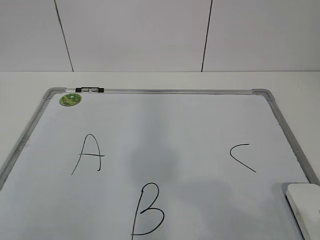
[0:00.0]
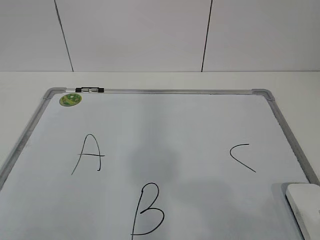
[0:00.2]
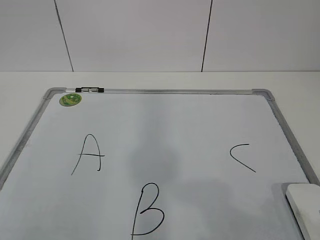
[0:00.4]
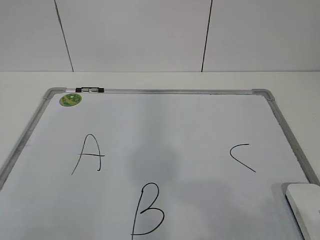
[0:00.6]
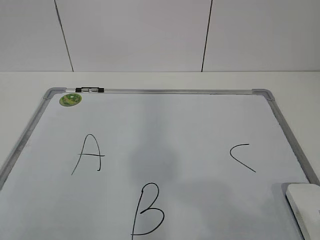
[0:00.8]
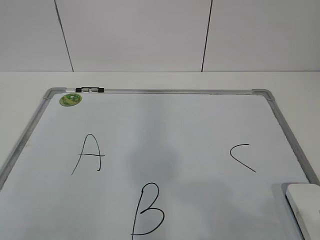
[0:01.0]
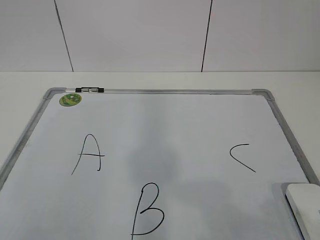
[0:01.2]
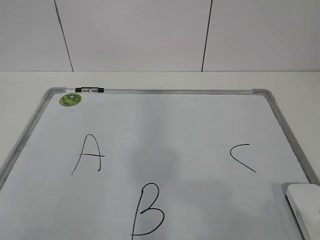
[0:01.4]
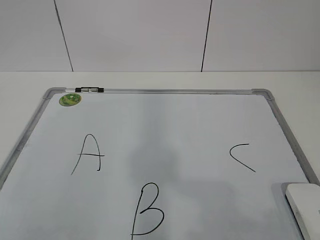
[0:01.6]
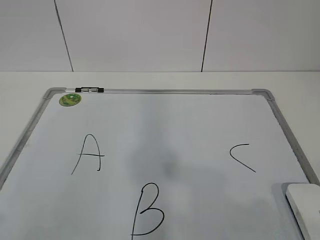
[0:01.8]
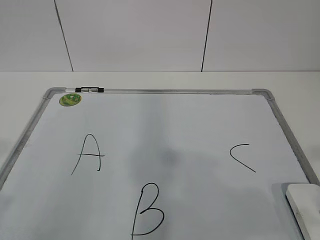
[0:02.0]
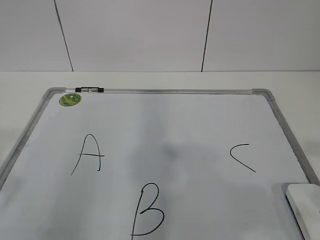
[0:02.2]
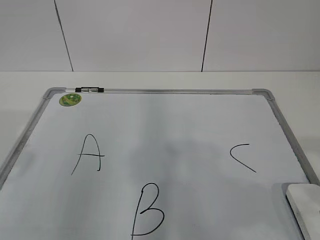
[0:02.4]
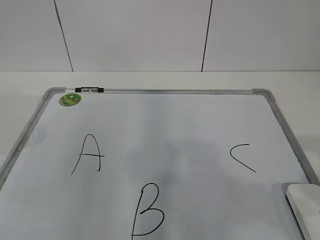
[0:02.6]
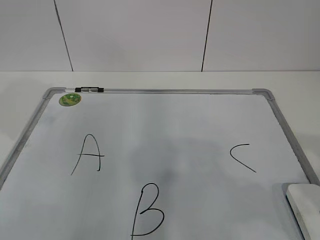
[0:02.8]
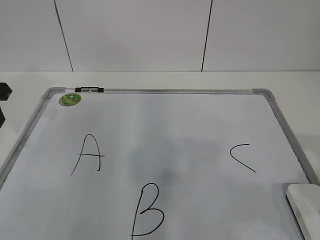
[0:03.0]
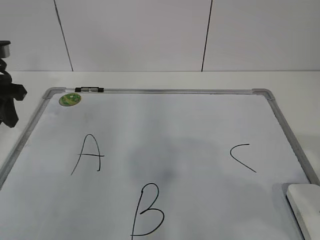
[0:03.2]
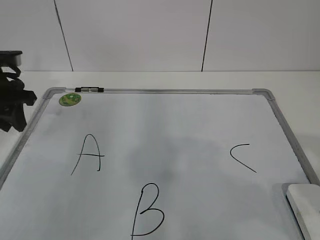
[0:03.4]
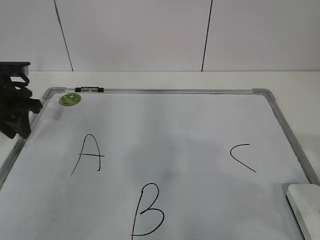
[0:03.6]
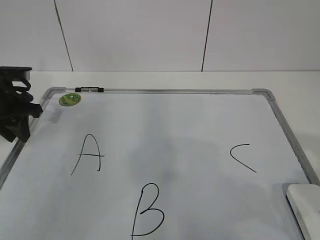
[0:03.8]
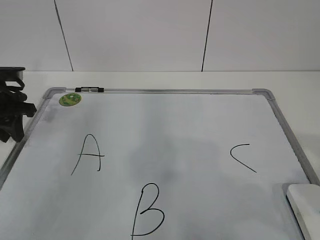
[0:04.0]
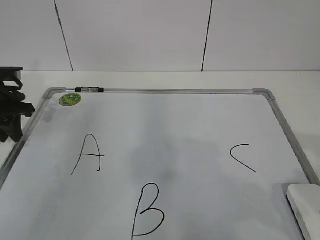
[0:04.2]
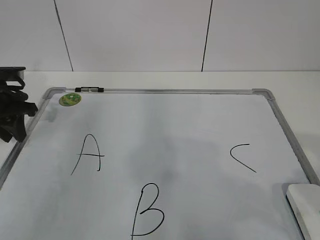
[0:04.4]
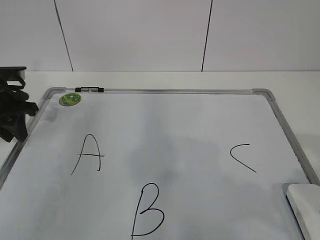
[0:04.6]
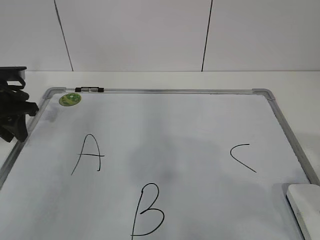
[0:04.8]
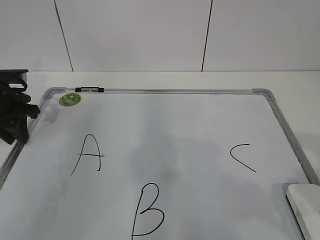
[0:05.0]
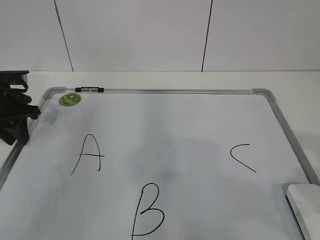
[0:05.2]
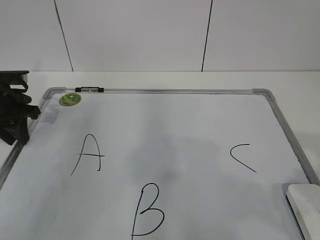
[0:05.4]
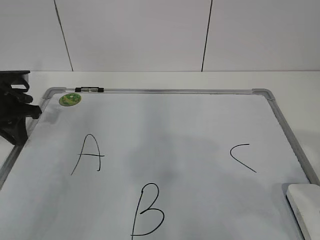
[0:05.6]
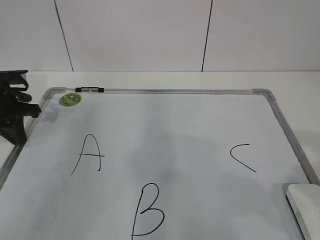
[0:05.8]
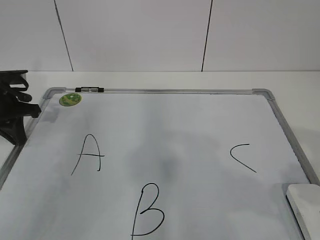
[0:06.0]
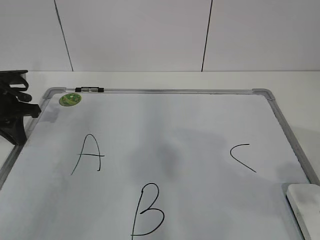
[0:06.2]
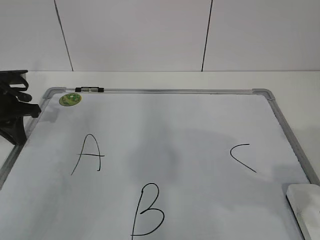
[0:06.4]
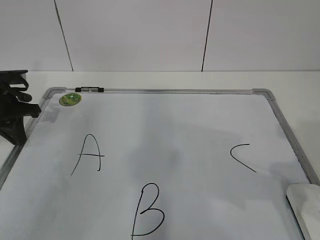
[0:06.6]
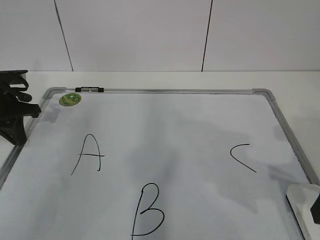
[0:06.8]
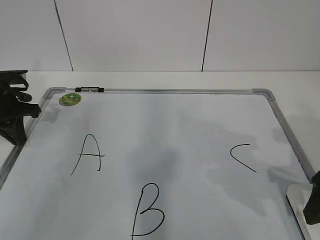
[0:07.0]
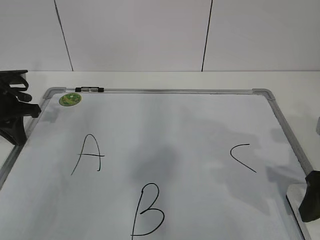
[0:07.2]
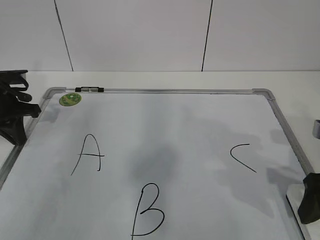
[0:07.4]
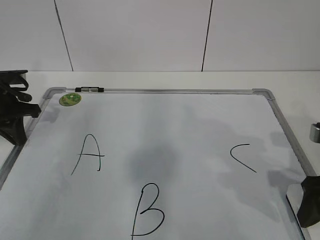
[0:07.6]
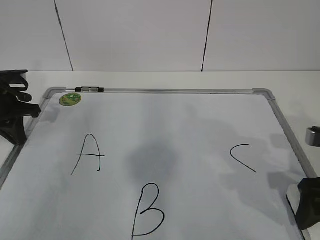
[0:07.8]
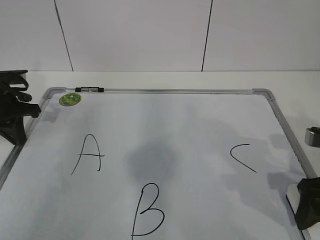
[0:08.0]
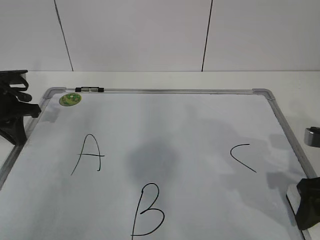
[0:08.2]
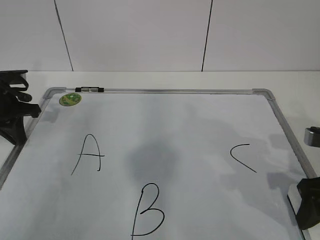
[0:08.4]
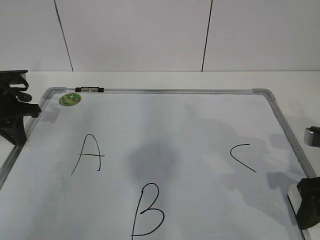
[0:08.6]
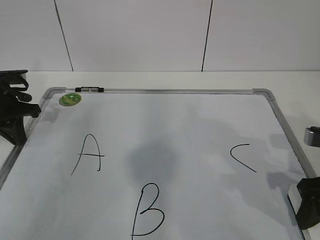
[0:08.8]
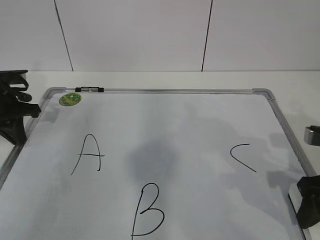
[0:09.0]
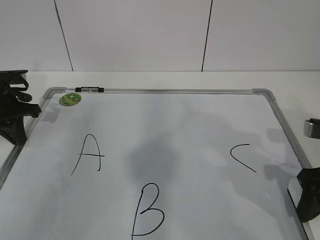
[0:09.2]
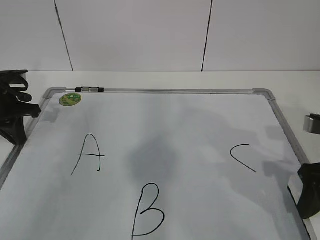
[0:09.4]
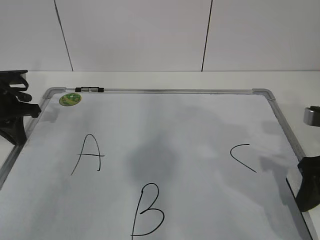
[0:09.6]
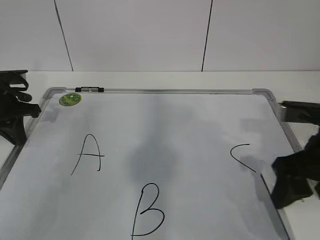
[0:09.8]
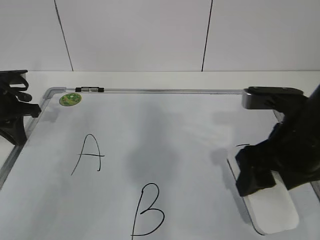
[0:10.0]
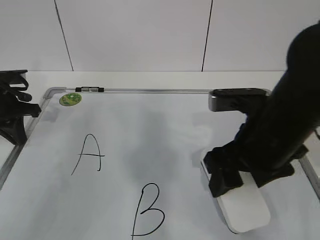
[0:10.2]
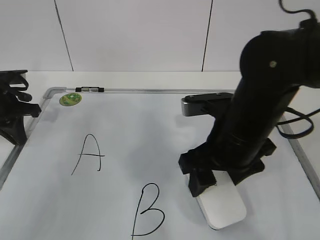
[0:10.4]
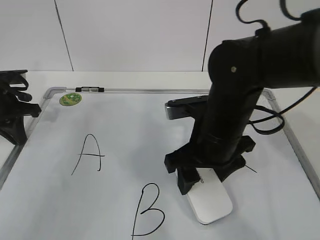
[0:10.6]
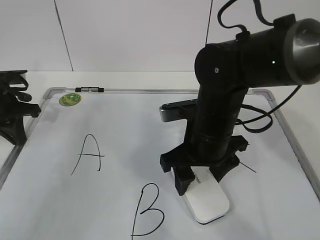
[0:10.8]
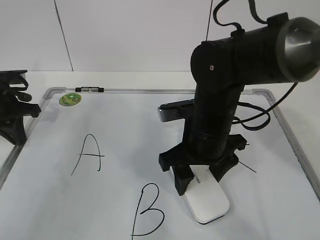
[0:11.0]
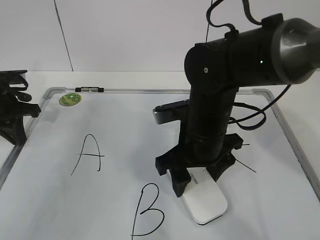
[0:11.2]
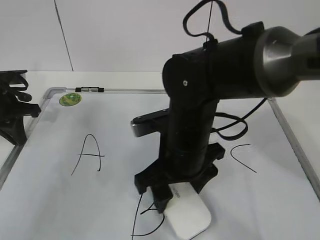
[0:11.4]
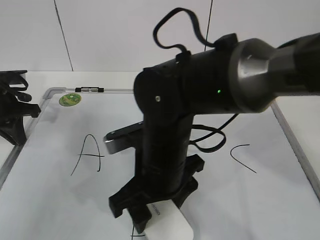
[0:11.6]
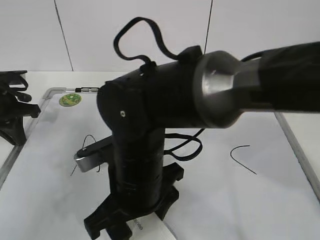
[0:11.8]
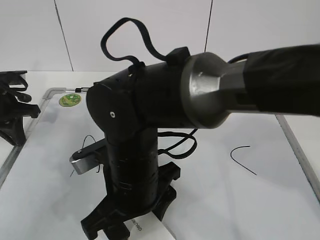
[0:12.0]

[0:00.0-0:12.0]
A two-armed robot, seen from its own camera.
Task of the whole recording: pick up the eraser on the blackboard and erase the letter "B".
Step, 0:00.0 to 0:04.6: Hold the drawing board steady with your left hand.
0:01.6 to 0:03.0: The left gripper travels forward by about 30 cm.
0:03.0 to 0:04.4: The left gripper heads downward and forward, covering about 10 cm.
0:04.4 to 0:06.0: The left gripper closes up.
0:06.0 to 0:07.6: The right gripper moves forward and downward, approximately 20 cm, and opens.
0:07.6 to 0:09.0: The right gripper closes its fingers.
0:09.0 to 0:10.4: The right gripper travels to the left by roughly 15 cm.
0:10.4 to 0:12.0: The right gripper is displaced to the left by about 15 cm.

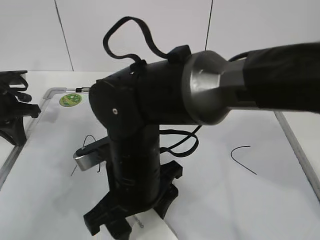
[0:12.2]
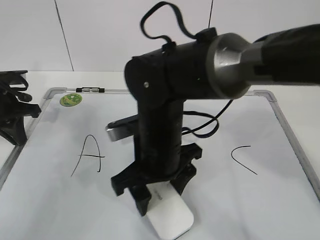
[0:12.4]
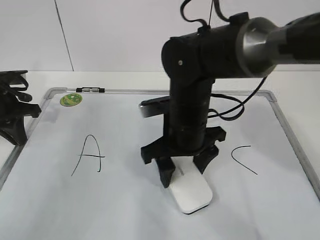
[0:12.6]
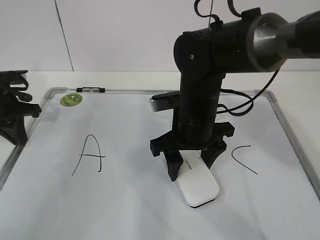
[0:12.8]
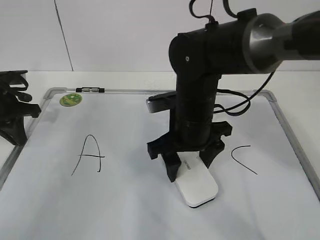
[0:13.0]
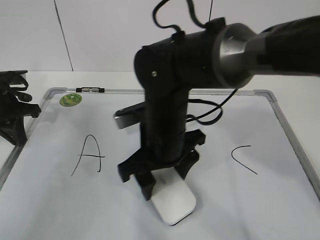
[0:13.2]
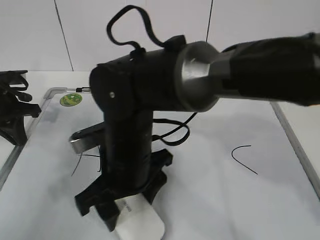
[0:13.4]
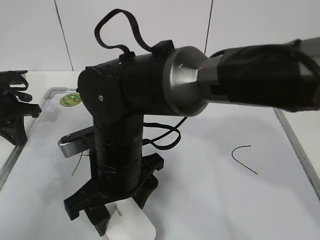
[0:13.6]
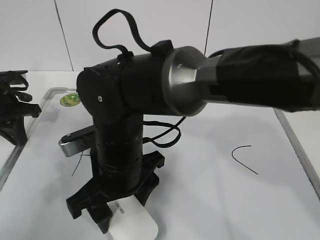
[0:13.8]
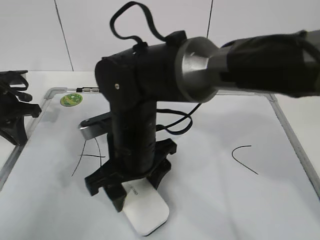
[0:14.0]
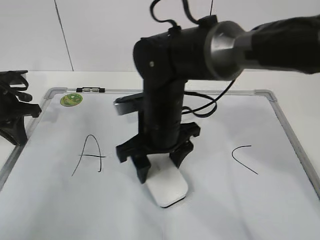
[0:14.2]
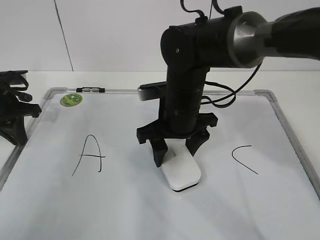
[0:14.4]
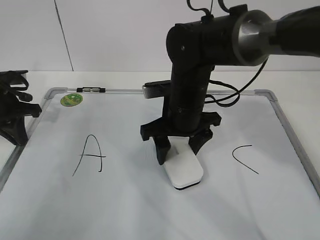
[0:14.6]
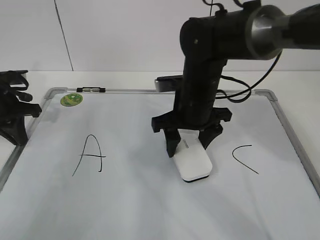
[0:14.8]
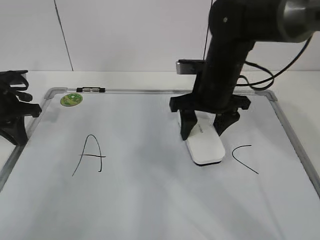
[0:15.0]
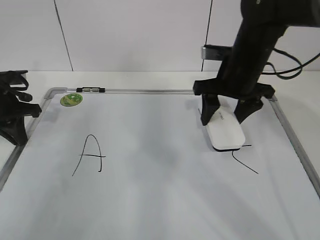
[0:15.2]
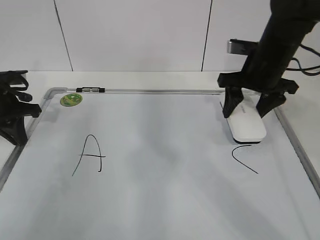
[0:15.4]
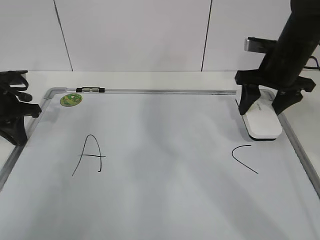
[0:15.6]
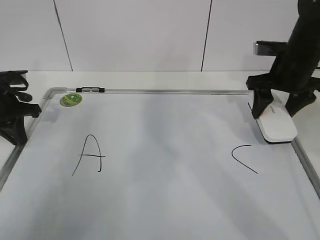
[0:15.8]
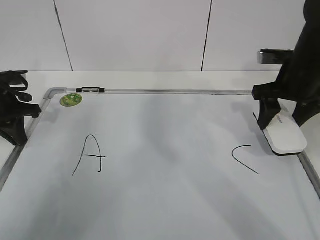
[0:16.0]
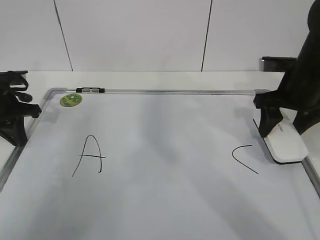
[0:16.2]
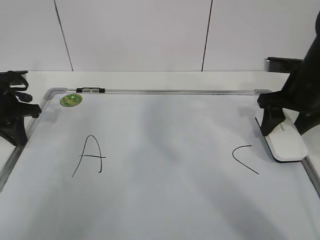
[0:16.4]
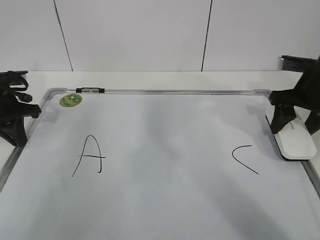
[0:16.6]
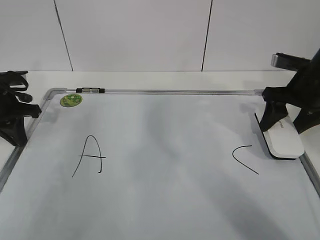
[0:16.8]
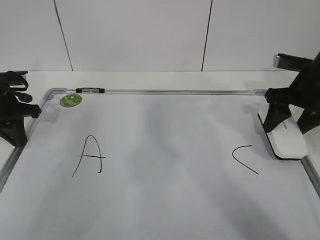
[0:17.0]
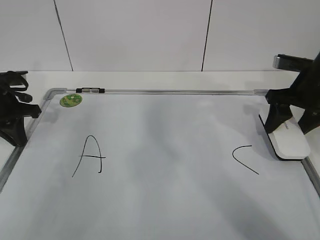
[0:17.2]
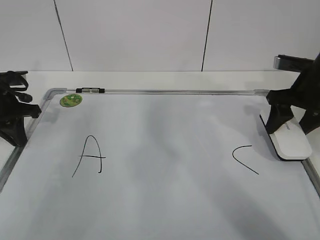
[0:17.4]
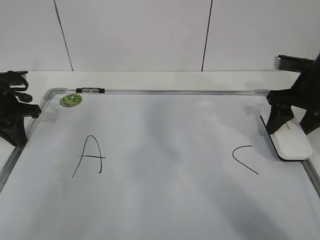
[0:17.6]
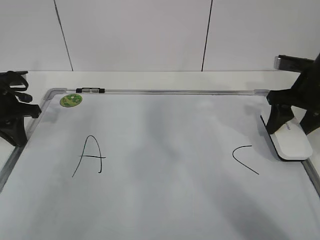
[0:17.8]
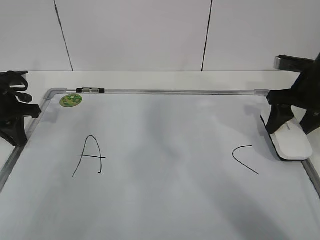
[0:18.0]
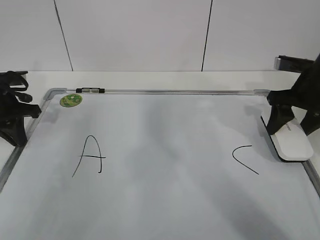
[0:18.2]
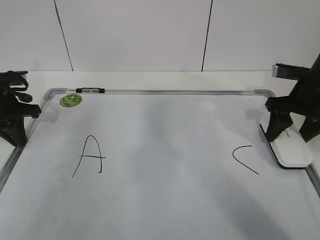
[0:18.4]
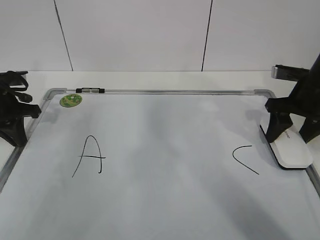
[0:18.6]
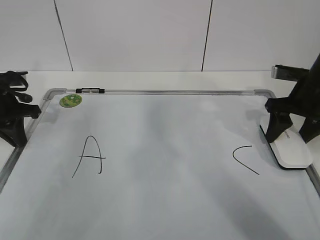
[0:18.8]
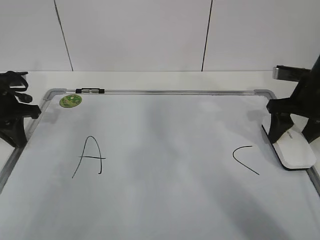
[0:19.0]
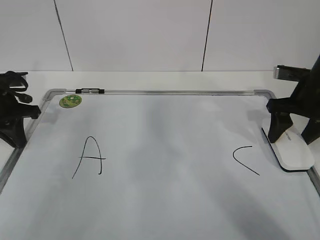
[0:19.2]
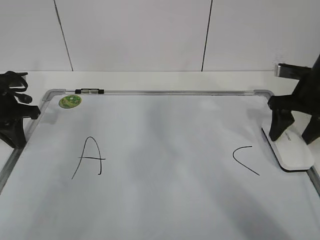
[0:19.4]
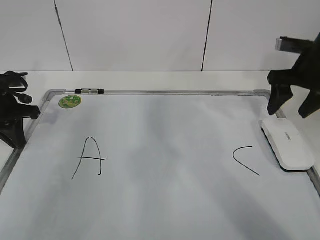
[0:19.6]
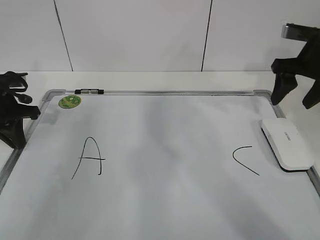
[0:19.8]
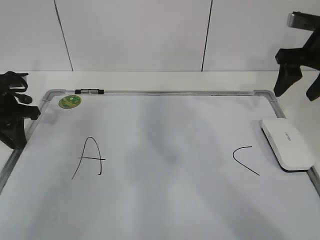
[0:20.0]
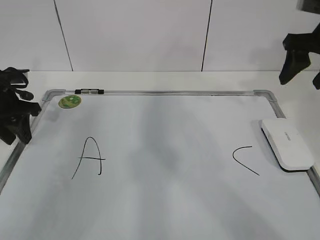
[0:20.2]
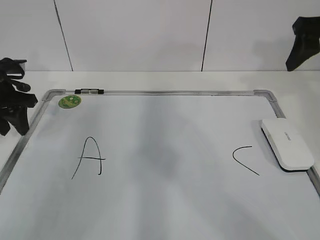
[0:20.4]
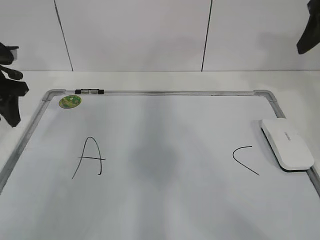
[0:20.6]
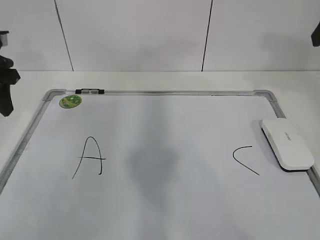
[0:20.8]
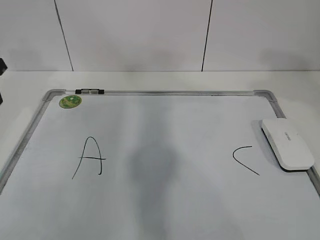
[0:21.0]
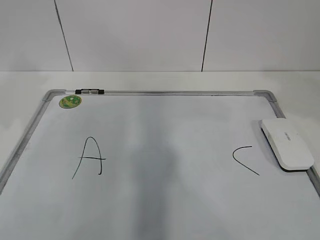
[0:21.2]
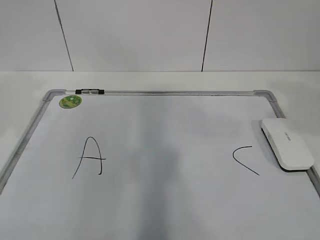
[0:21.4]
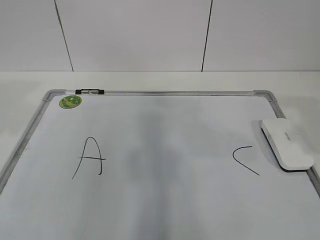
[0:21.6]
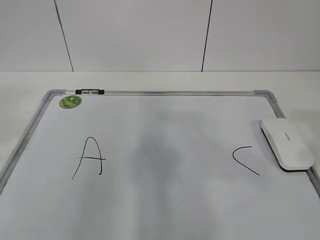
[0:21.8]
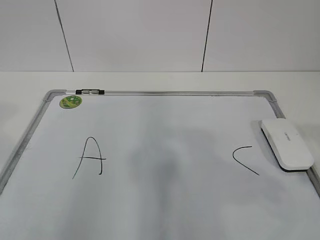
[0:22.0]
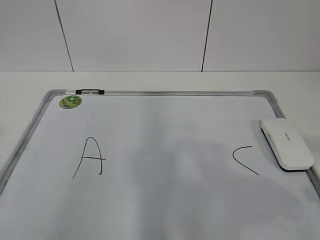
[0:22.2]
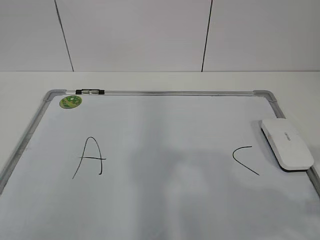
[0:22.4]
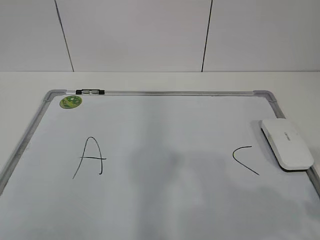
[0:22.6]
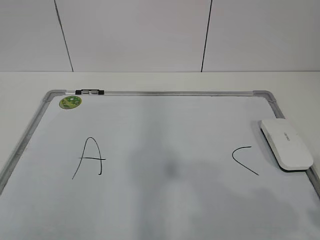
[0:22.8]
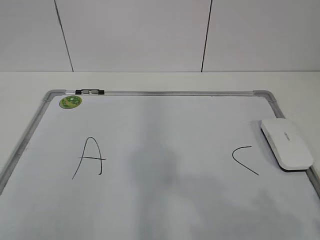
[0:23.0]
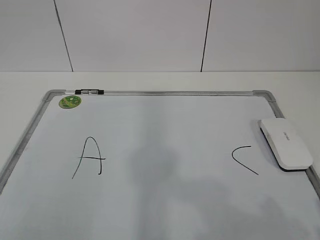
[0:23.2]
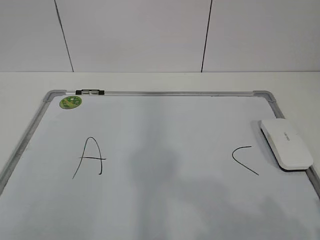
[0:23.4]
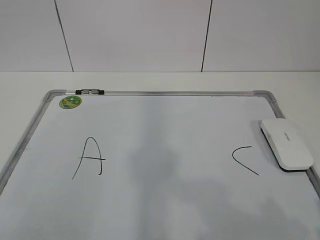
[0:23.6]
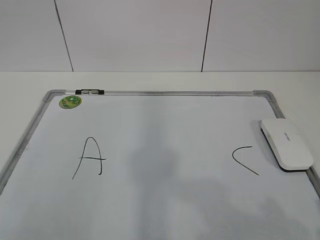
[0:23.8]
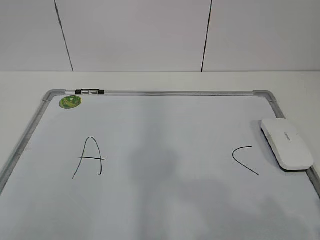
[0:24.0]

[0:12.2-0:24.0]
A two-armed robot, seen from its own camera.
Task of the whole recording: pick up the eraser on the blackboard and erase the letter "B".
Step, 0:12.4 to 0:15.8: Put down the eraser with your right hand.
0:12.2 to 0:13.6: The right gripper moves roughly 10 cm to the right and comes back.
0:13.6 to 0:15.2: The right gripper moves to the right and forward, some 25 cm.
0:15.2 to 0:16.6: The right gripper shifts approximately 15 cm to the right.
0:16.6 to 0:18.2: There are only small adjustments of the grippers.
0:18.2 to 0:19.6: The right gripper opens.
0:19.6 to 0:21.0: The left gripper travels upward by approximately 10 cm, and opens up, while the right gripper goes approximately 20 cm upward and backward.
0:21.0 to 0:22.6: The right gripper heads backward and downward, covering about 25 cm, while the left gripper travels backward by approximately 35 cm, and closes up.
